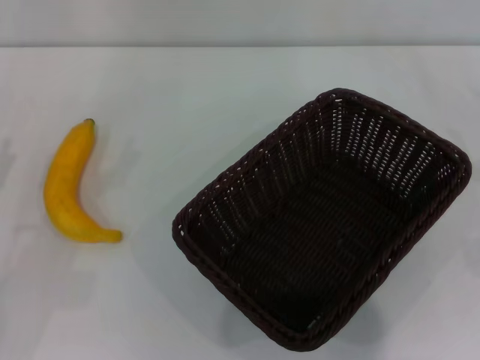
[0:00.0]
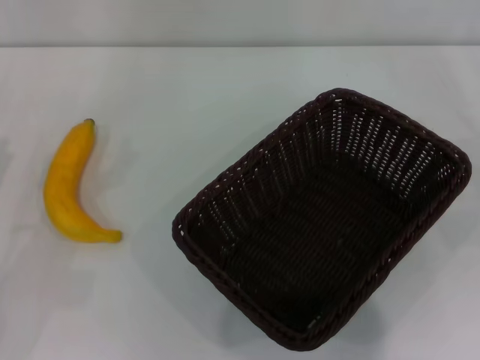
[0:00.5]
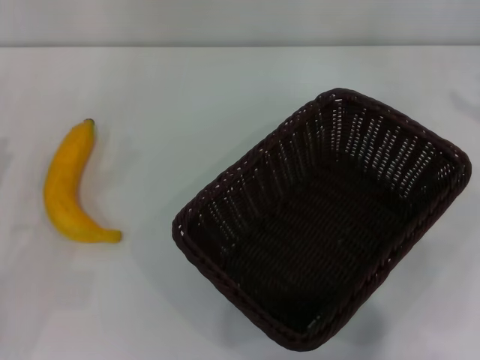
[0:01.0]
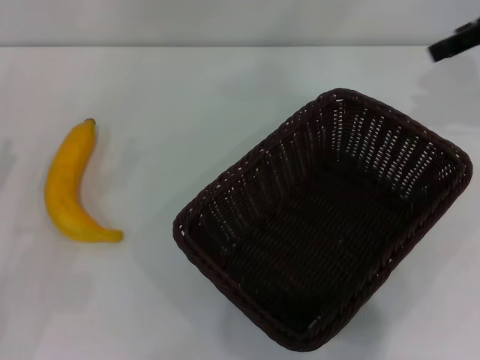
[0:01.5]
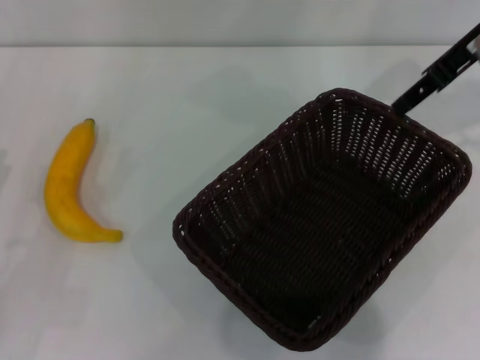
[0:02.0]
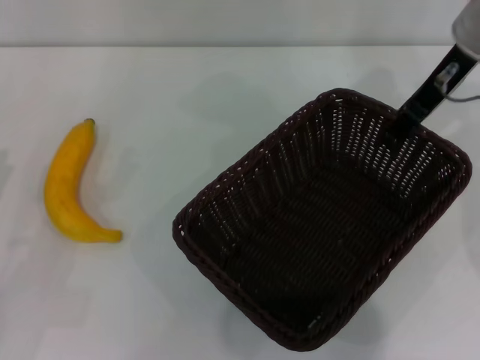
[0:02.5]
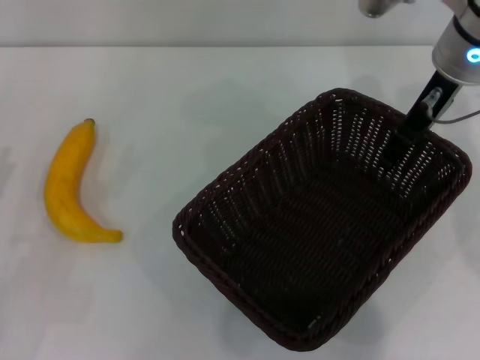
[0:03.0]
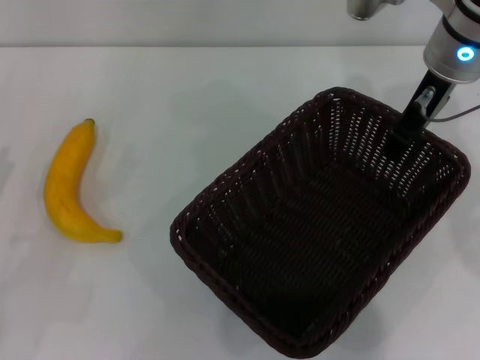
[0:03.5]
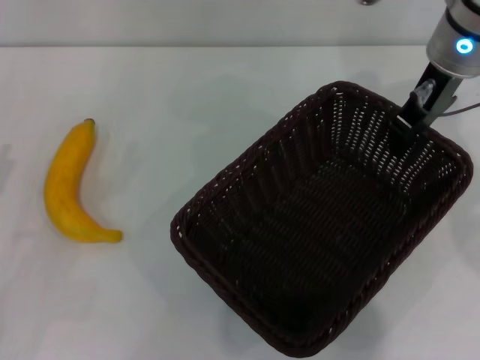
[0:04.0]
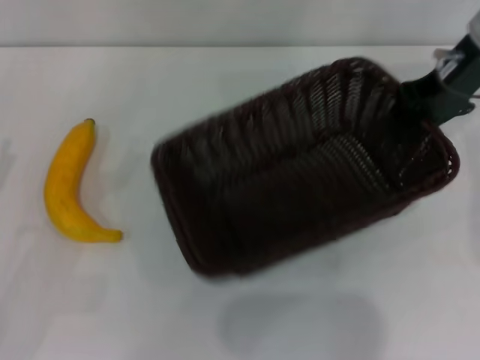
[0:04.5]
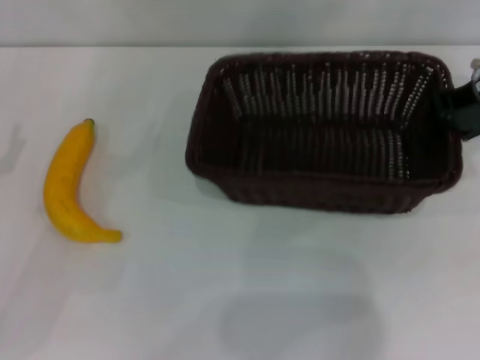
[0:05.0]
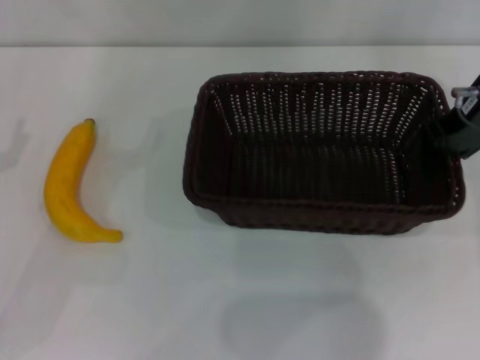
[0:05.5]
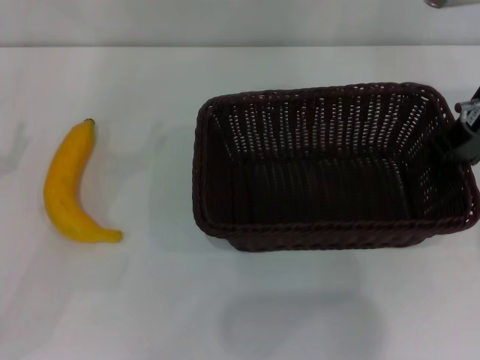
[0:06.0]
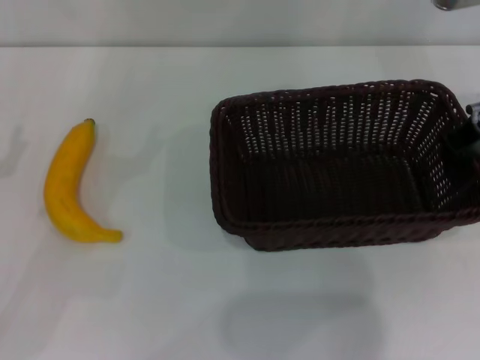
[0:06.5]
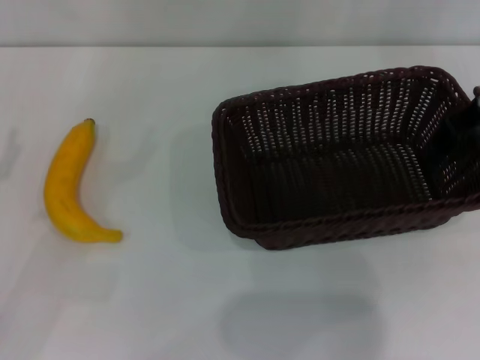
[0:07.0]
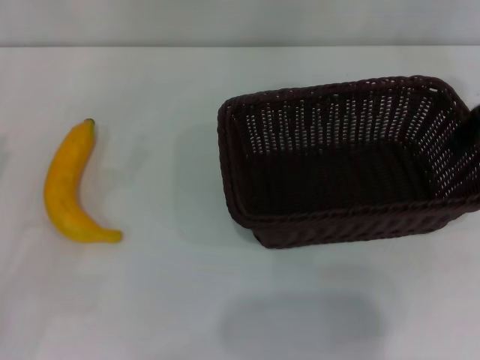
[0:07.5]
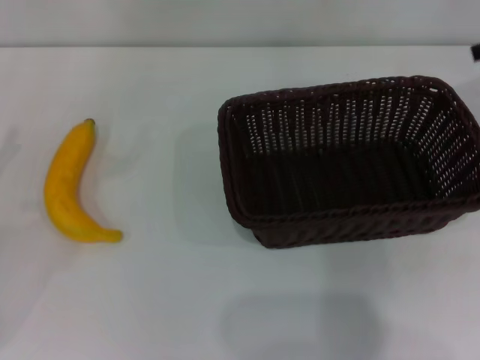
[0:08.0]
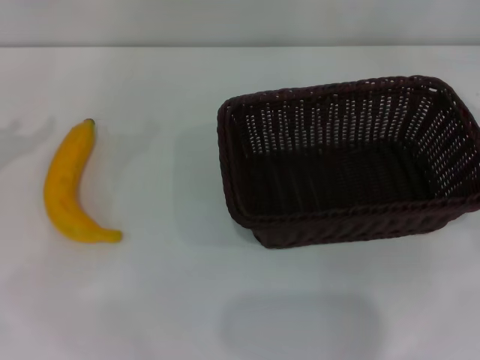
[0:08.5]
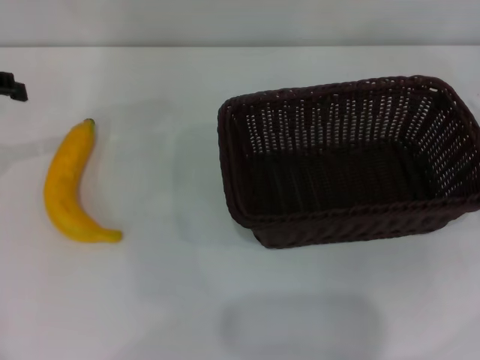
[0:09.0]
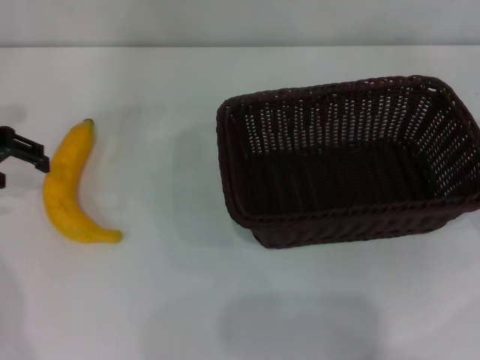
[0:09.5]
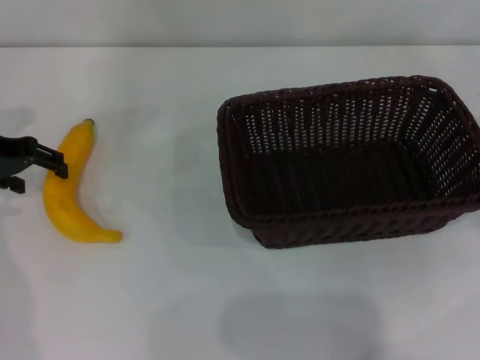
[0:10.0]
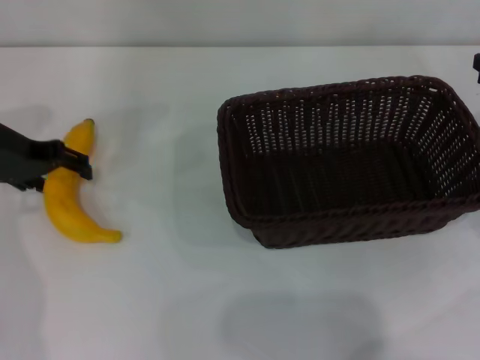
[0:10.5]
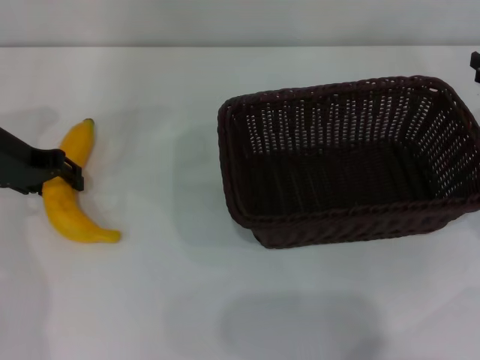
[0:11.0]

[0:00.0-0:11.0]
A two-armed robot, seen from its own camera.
Step, 0:00.0 to 0:04.0: Pick up the dark basket with the right gripper.
Step, 0:04.5 to 0:07.5: Place the dark basket in the center of view with the right gripper.
0:00.0 to 0:02.0: The right gripper shifts approximately 30 cm to the left, upward and forward.
0:02.0 to 0:03.5: The right gripper goes roughly 10 cm to the left and downward, and closes up.
0:03.5 to 0:05.5: The right gripper shifts approximately 5 cm to the right.
0:05.5 to 0:07.5: The right gripper opens its fingers.
0:09.0 to 0:11.0: The left gripper is displaced downward and to the right by approximately 10 cm.

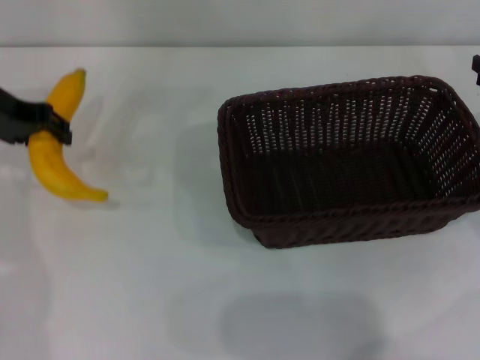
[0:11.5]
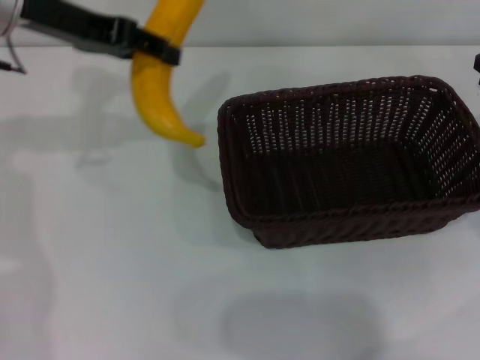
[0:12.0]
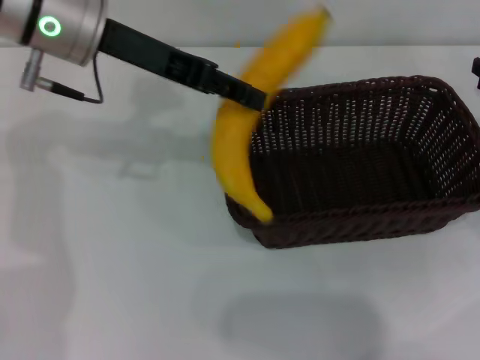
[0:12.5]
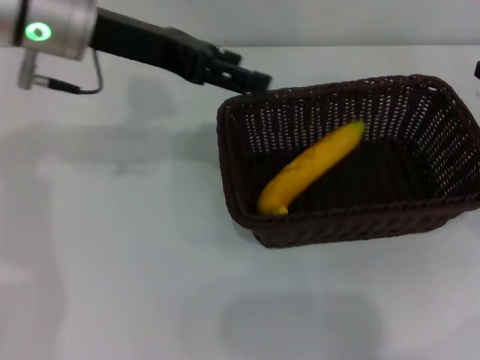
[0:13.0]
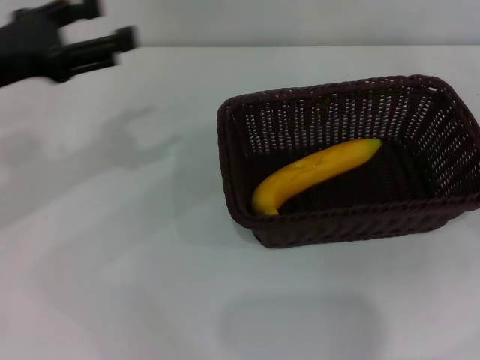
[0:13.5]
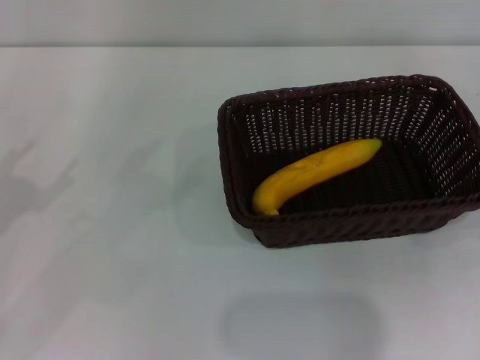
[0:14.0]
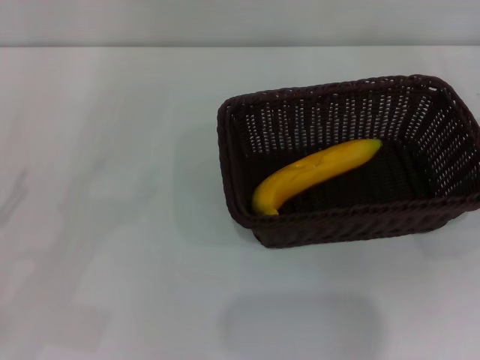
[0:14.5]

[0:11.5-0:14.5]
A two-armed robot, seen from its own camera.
Step, 0:12.0 to 0:12.5: Place the banana into the dark basket with the left gripper.
0:11.5 to 0:13.0: The left gripper travels to the right and upward by about 10 cm, and opens up.
0:13.0 to 0:14.5: The left gripper heads backward, to the left and downward, covering approximately 30 cm, while the right gripper shifts by about 5 cm.

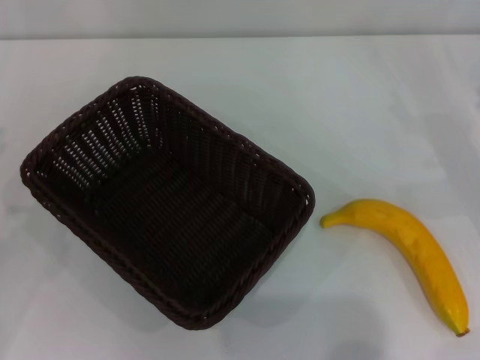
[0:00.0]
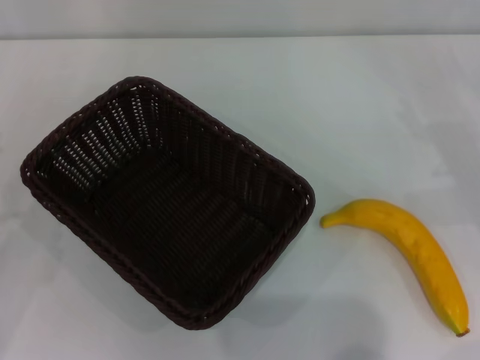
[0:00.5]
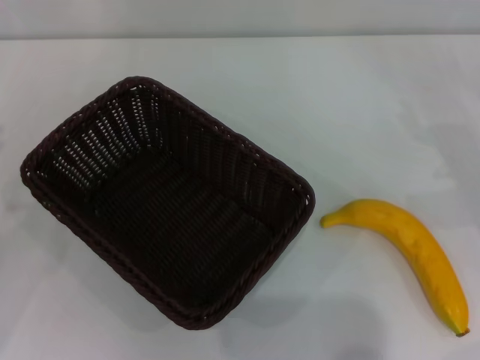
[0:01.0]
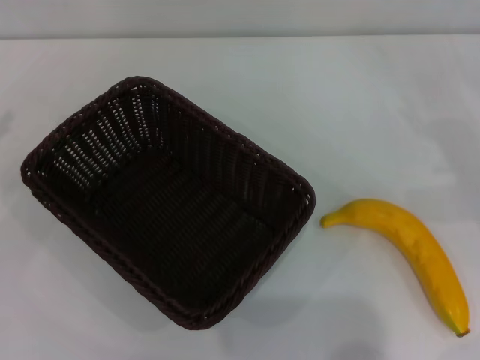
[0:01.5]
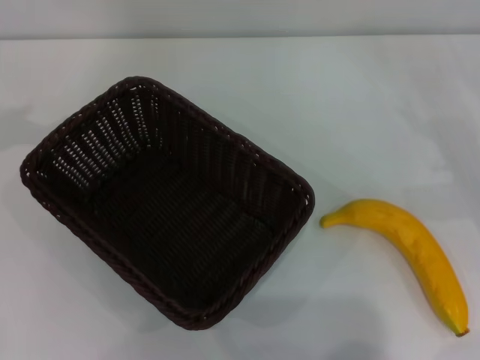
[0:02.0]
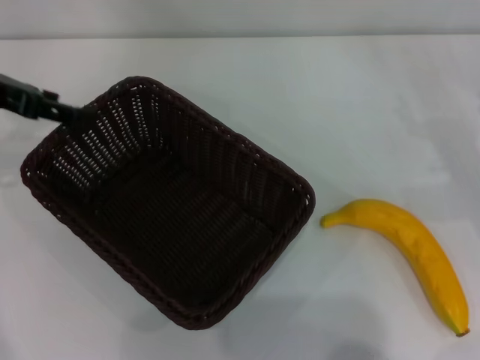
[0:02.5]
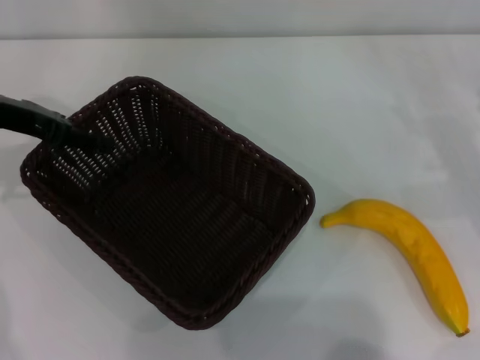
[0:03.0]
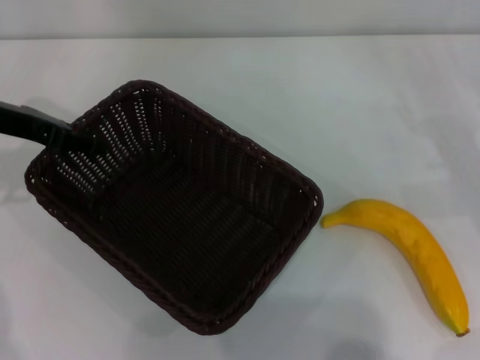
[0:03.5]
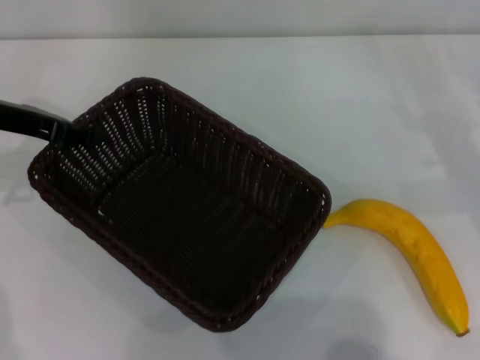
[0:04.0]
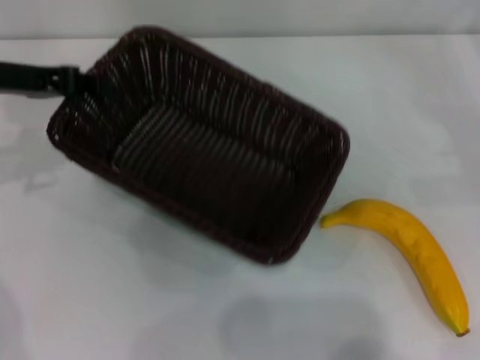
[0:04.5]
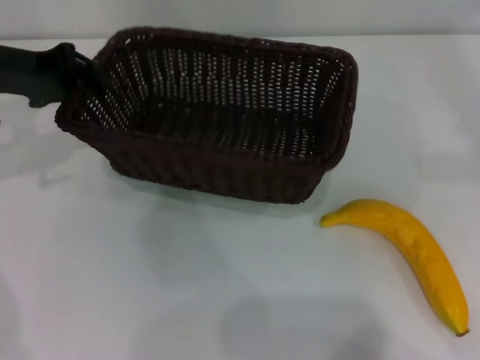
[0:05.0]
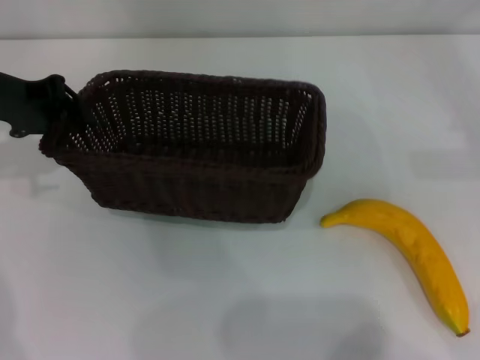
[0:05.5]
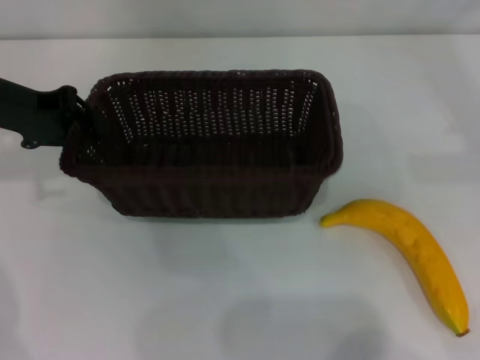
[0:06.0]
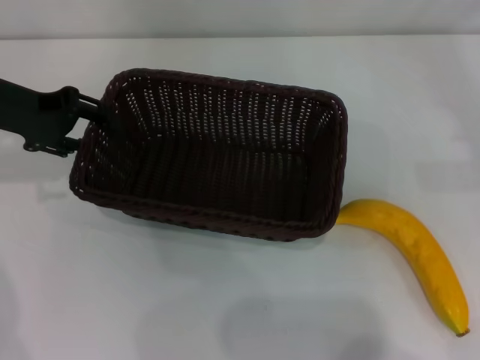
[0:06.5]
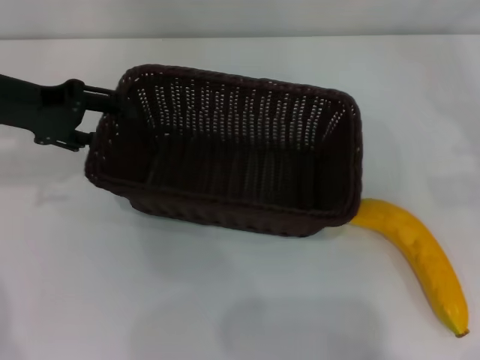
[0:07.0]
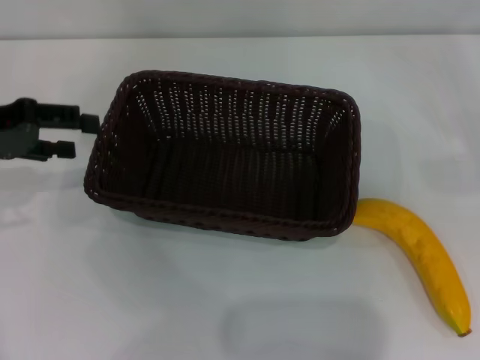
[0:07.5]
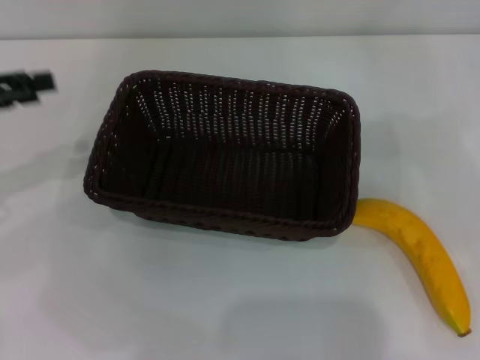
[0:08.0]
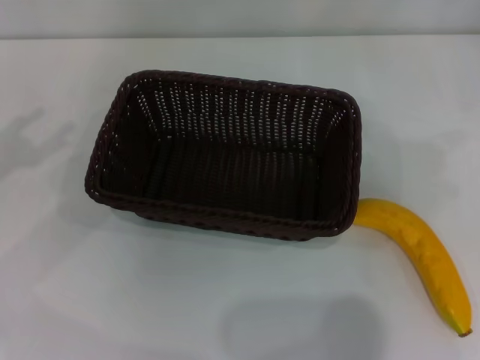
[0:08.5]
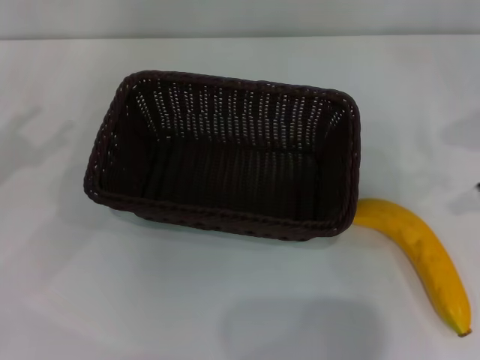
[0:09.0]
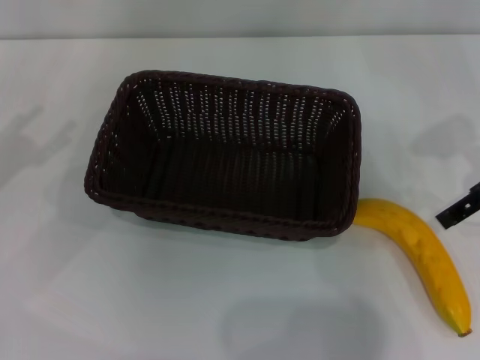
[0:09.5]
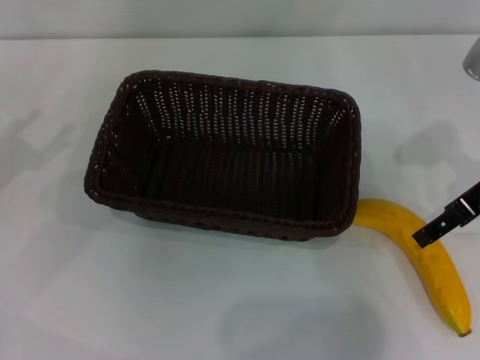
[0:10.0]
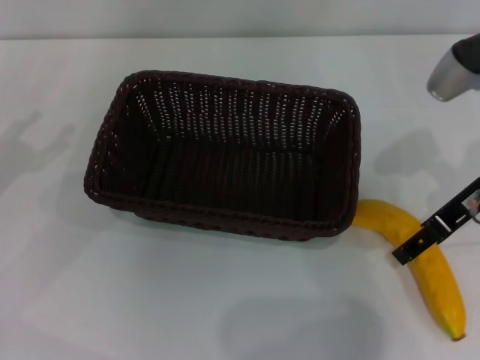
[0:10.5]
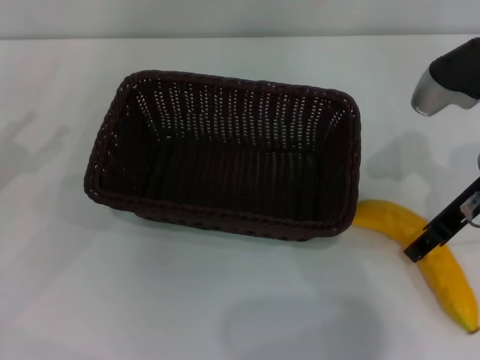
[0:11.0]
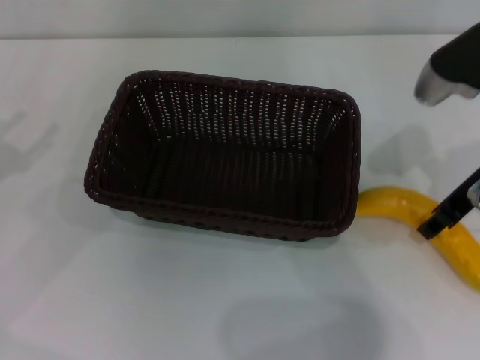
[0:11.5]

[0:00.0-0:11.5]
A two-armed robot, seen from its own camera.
Step, 0:00.0 to 0:04.5: Pick up the dark basket with the left gripper.
Step, 0:05.0 to 0:07.5: Place the dark basket in the center of view with the left gripper.
0:02.0 to 0:04.0: The left gripper moves to the right and downward, some 10 cm, and closes.
0:04.0 to 0:06.0: The right gripper travels to the right and upward by approximately 10 cm.
0:06.0 to 0:07.5: The left gripper changes place by approximately 5 cm, and opens, while the right gripper moves roughly 5 cm.
0:07.5 to 0:09.5: The left gripper is displaced backward by roughly 5 cm; the right gripper is displaced to the left by approximately 20 cm.
0:09.5 to 0:11.5: The right gripper shifts roughly 5 cm to the left, and closes its fingers.
